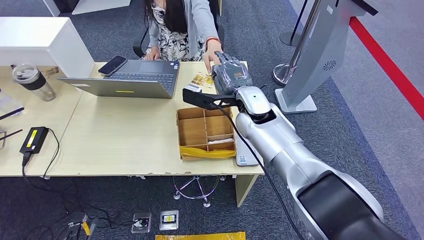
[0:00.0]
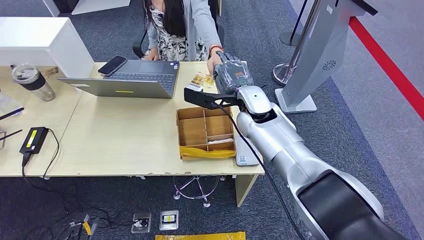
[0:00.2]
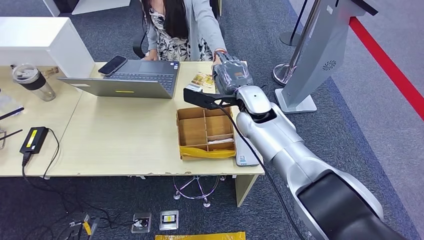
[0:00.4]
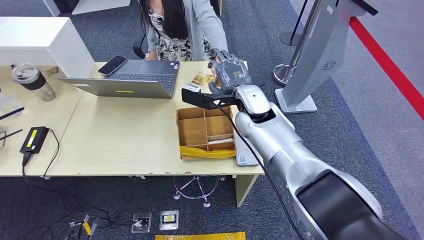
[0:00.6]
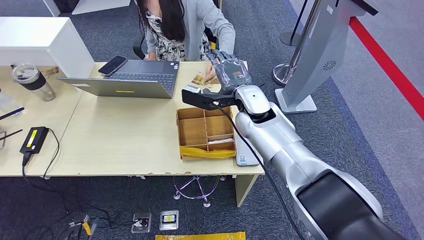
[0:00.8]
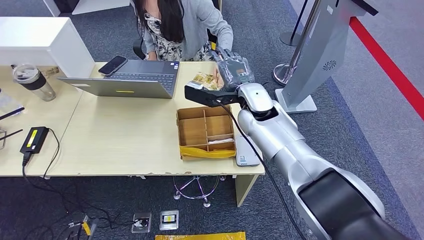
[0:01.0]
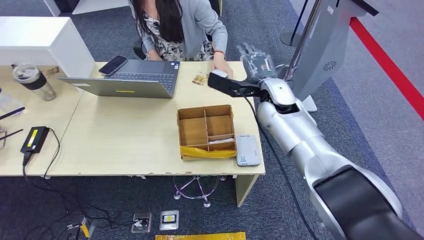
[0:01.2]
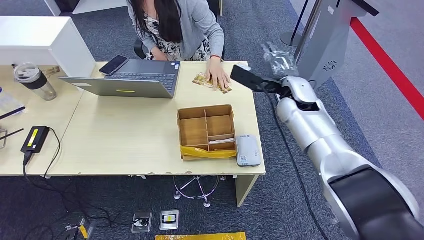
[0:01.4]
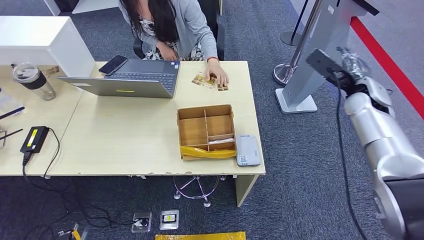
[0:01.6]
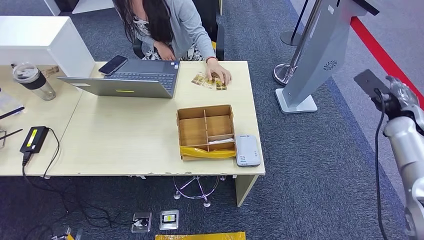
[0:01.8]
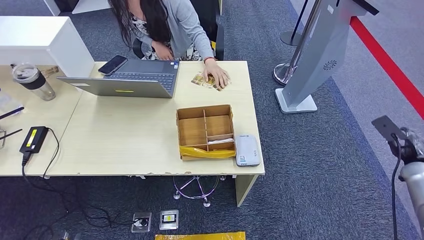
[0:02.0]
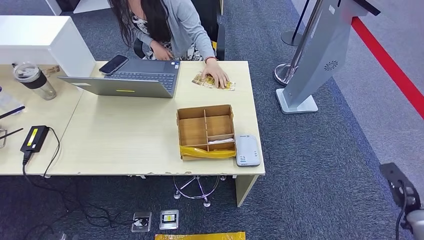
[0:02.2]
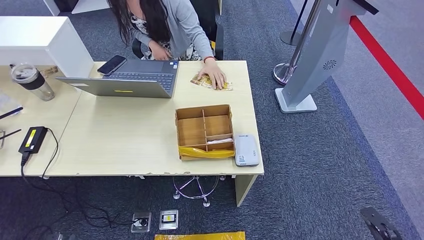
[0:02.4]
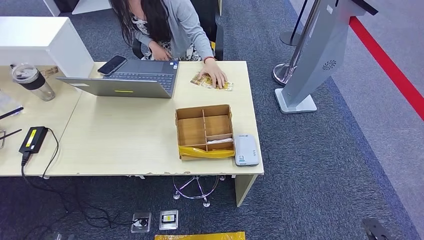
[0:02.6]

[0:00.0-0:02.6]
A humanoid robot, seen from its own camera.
Step, 0:00.0 to 0:02.6: Hand the room key to the person.
0:00.0 to 0:01.2: The right hand heads to the right, covering roughly 5 cm.
0:01.2 to 0:02.6: The left hand shifts roughly 5 cm backward; the right hand is displaced backward, to the right and downward by some 60 cm.
